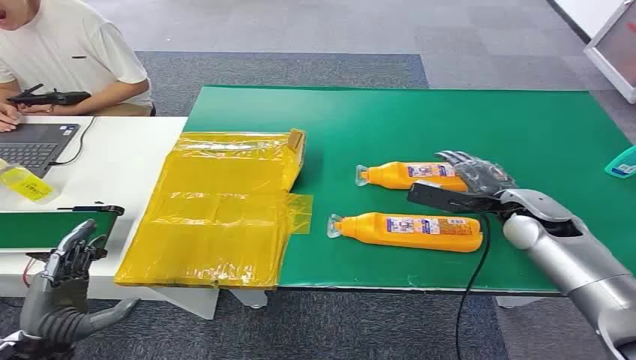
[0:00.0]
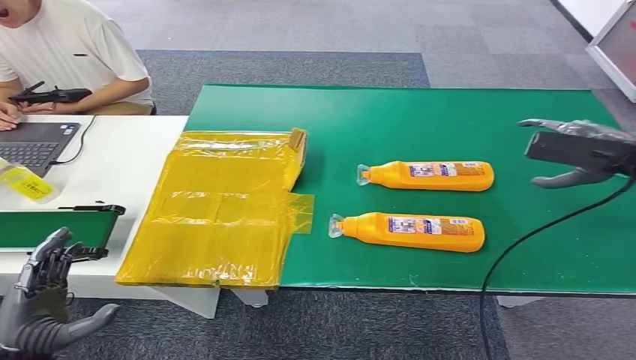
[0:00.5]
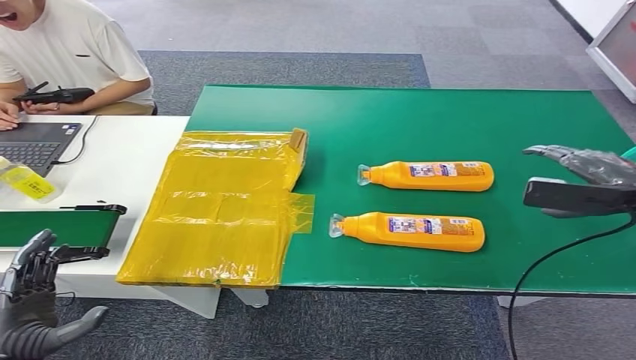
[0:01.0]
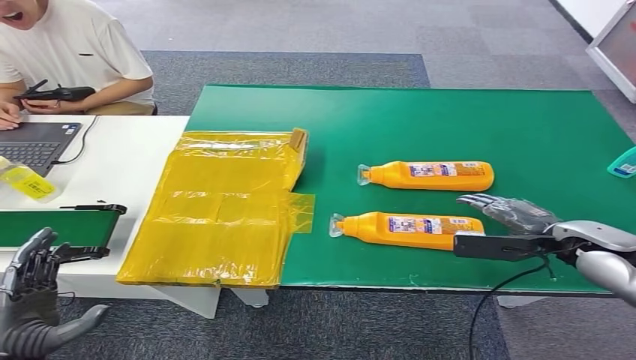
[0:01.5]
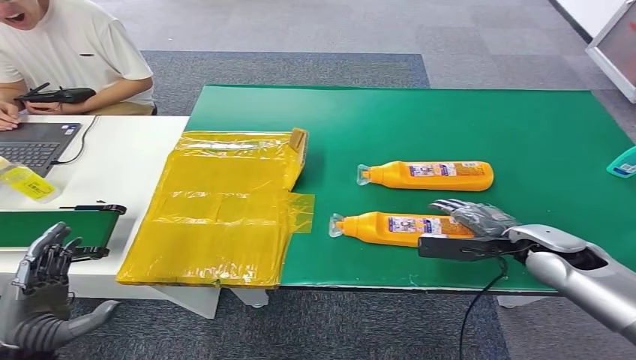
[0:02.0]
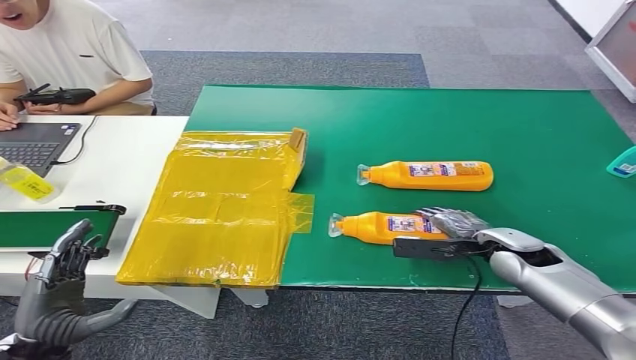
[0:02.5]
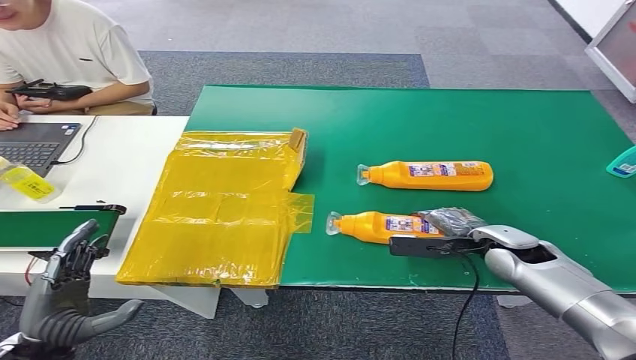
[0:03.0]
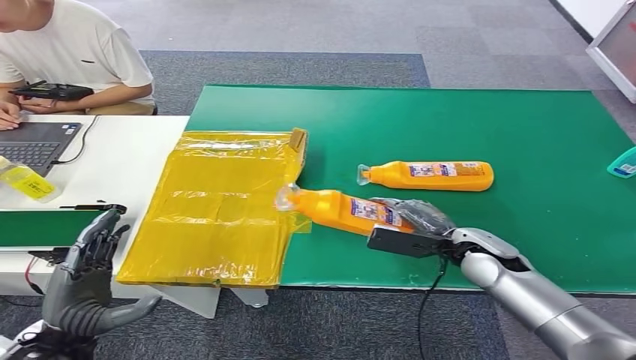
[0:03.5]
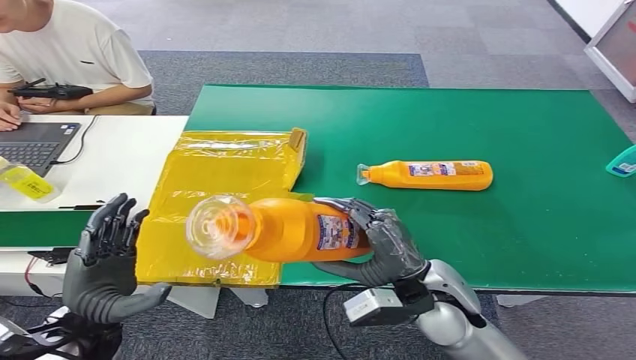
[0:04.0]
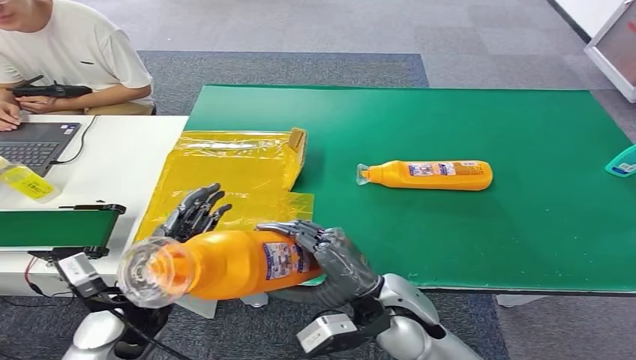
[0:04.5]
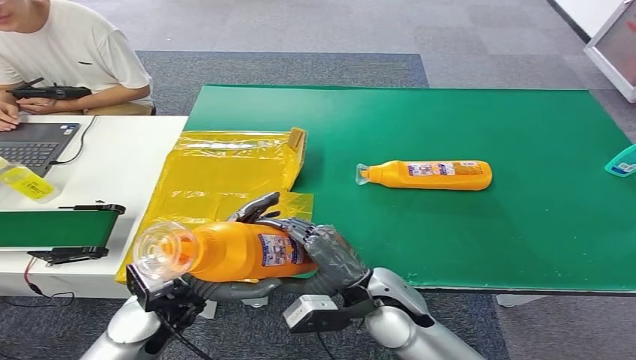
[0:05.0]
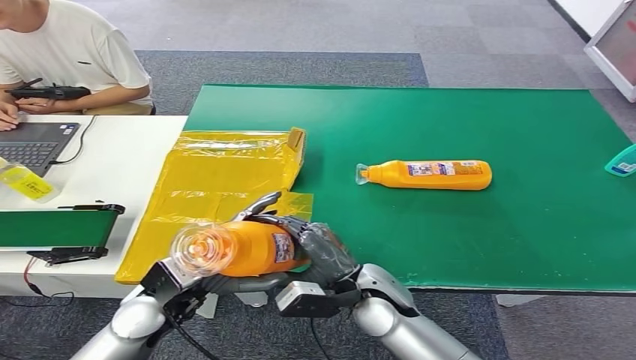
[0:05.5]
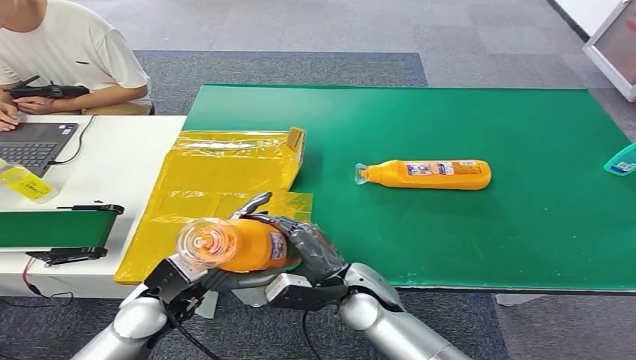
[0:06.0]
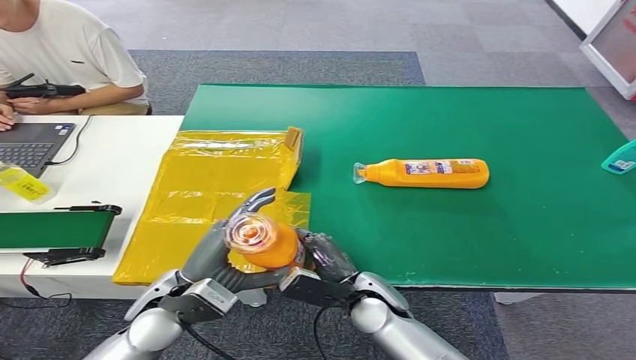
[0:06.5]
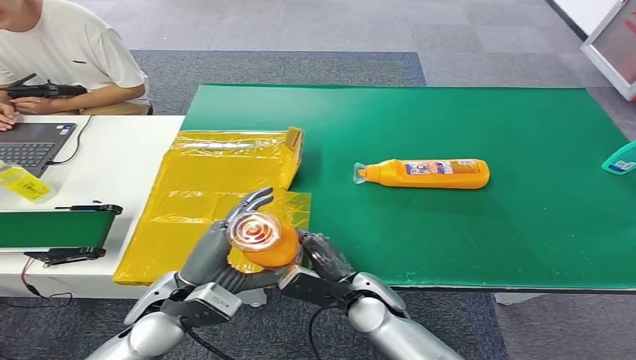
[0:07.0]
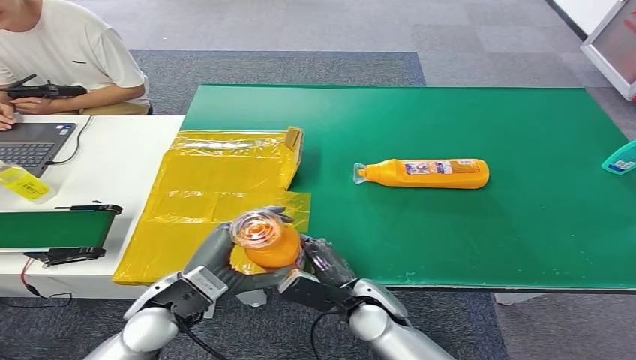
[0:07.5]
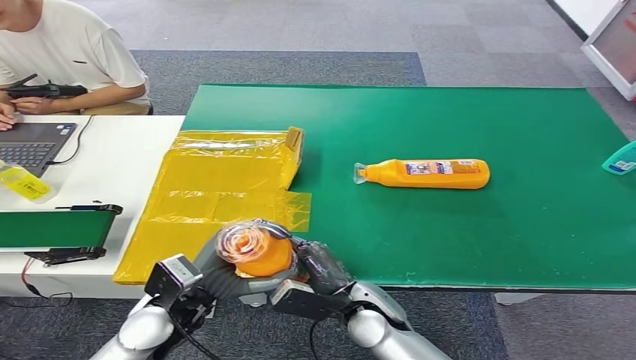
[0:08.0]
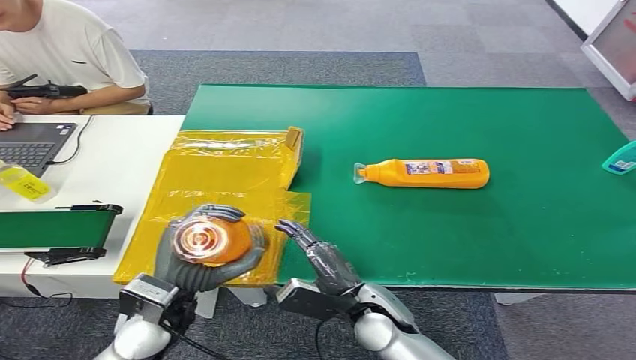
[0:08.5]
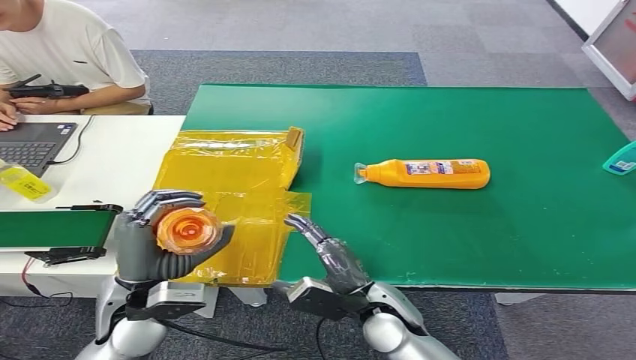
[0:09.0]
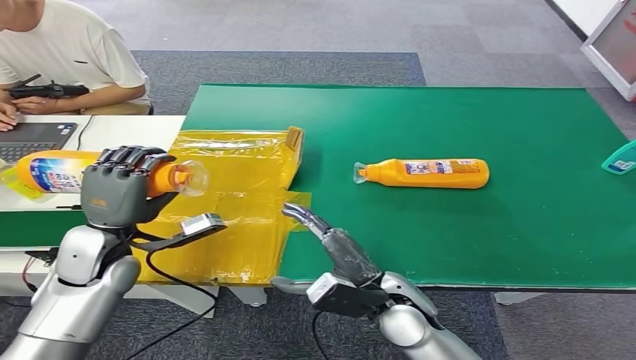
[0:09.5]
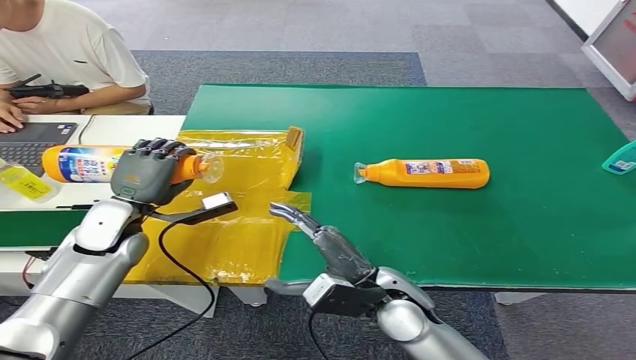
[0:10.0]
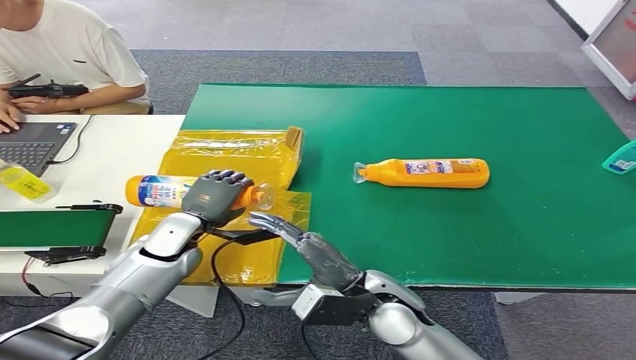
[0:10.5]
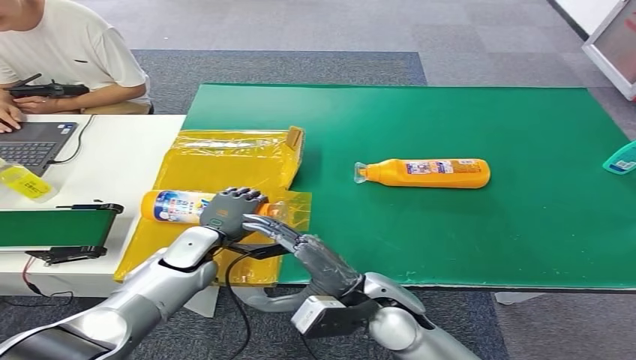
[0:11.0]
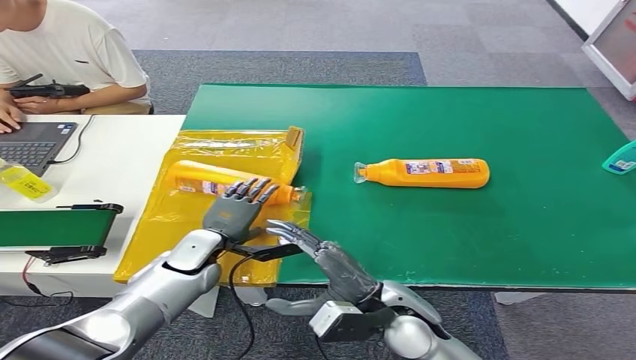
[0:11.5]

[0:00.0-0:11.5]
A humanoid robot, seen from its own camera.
Step, 0:00.0 to 0:04.0: Pick up the bottle from the table.
Step, 0:04.5 to 0:11.5: Turn the bottle to the front side.
0:04.0 to 0:06.0: The left hand goes some 10 cm to the right and forward. The right hand shifts roughly 10 cm to the left and downward.
0:07.5 to 0:09.5: The right hand shifts approximately 5 cm upward, while the left hand goes about 15 cm to the left and forward.
0:09.5 to 0:11.5: The left hand heads downward and to the right, covering approximately 15 cm.
